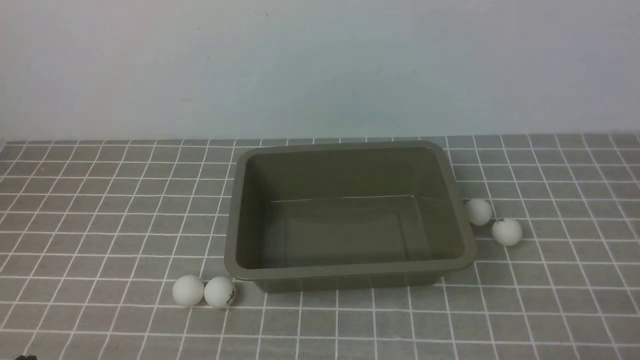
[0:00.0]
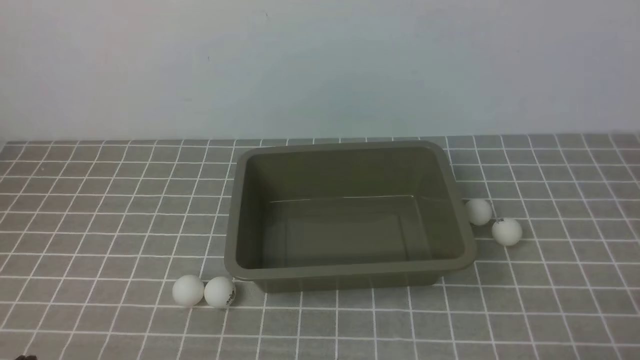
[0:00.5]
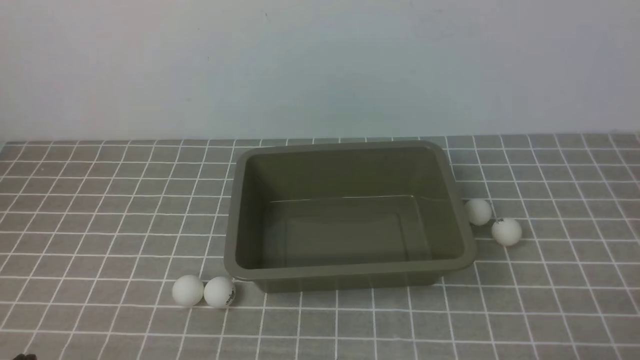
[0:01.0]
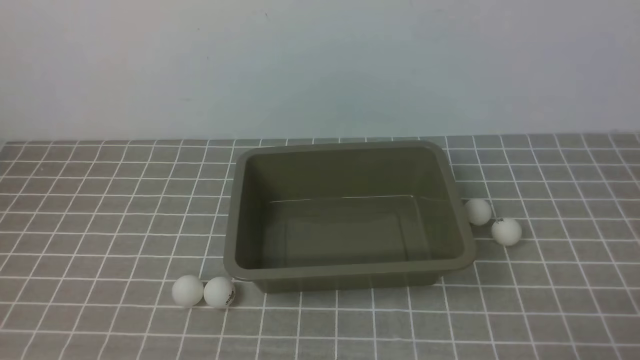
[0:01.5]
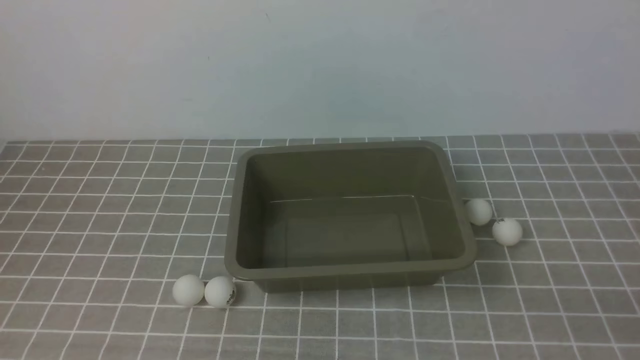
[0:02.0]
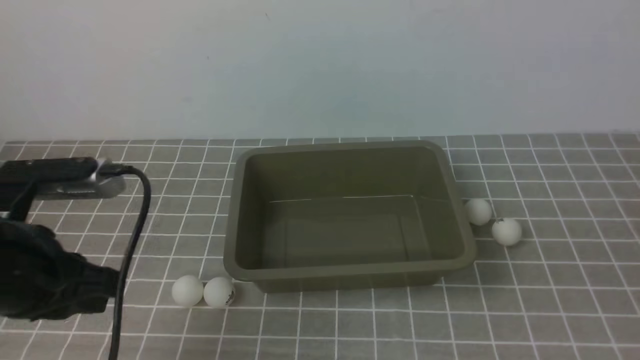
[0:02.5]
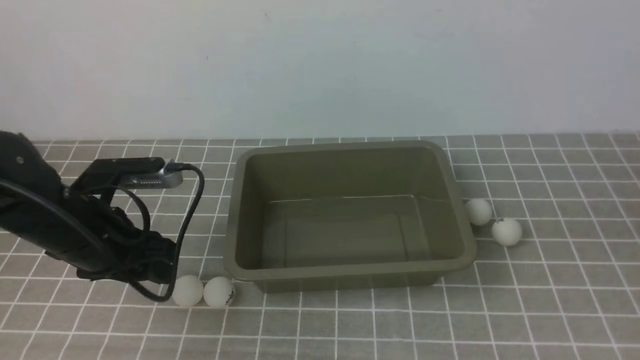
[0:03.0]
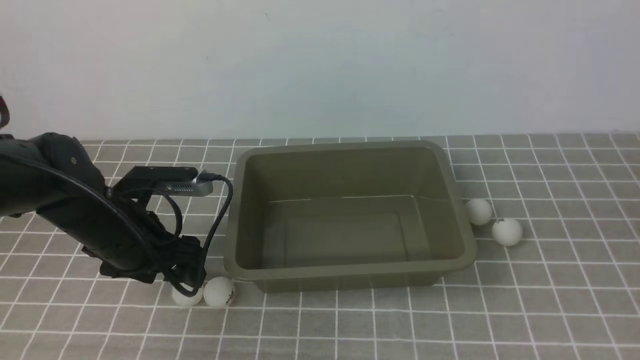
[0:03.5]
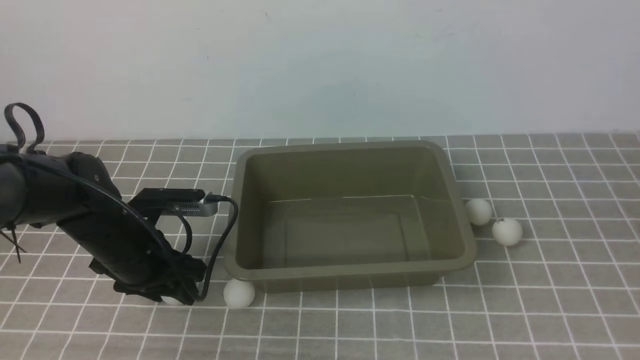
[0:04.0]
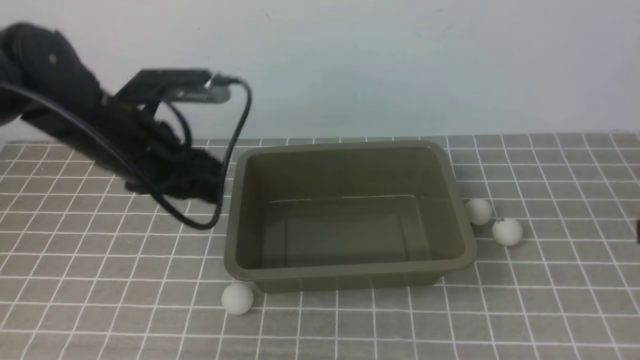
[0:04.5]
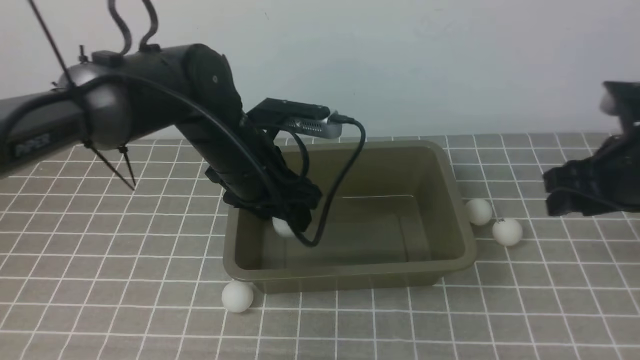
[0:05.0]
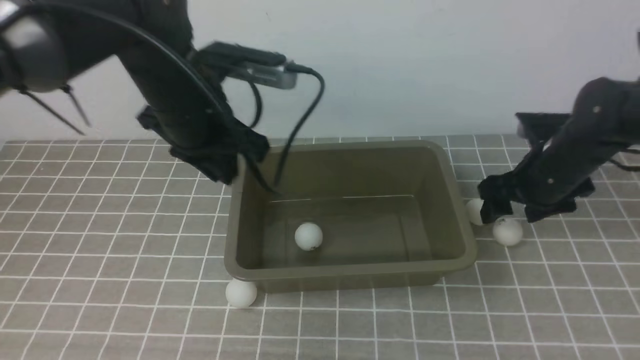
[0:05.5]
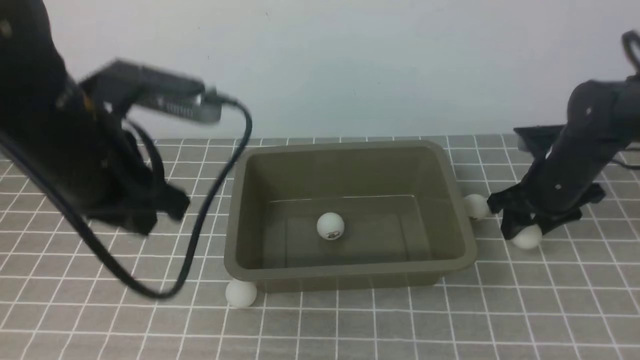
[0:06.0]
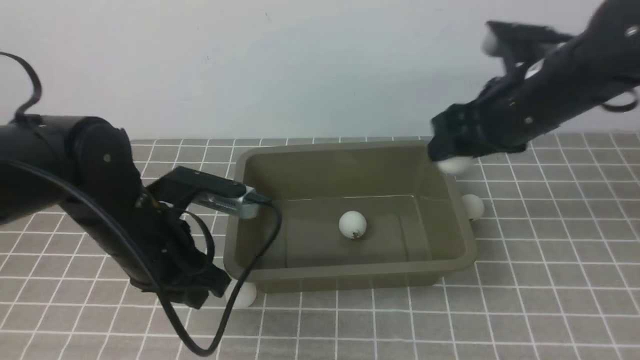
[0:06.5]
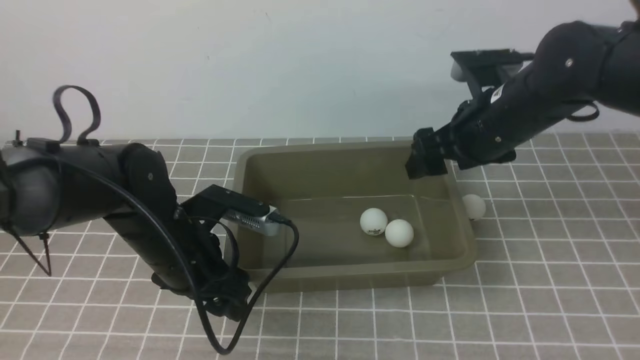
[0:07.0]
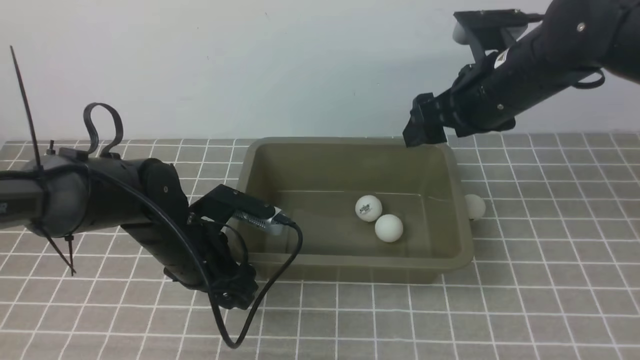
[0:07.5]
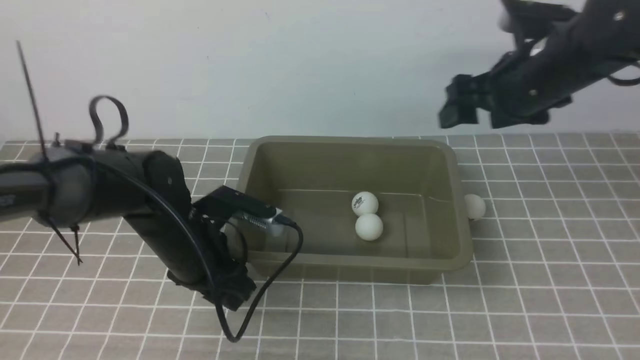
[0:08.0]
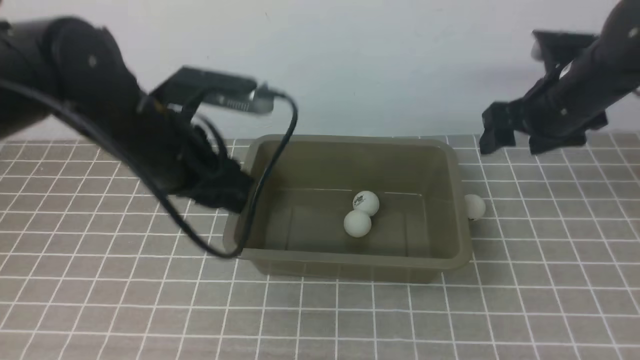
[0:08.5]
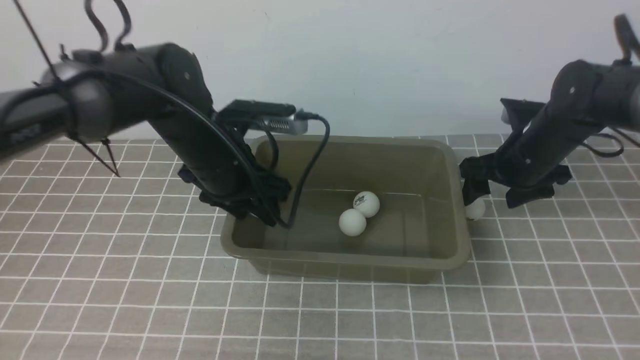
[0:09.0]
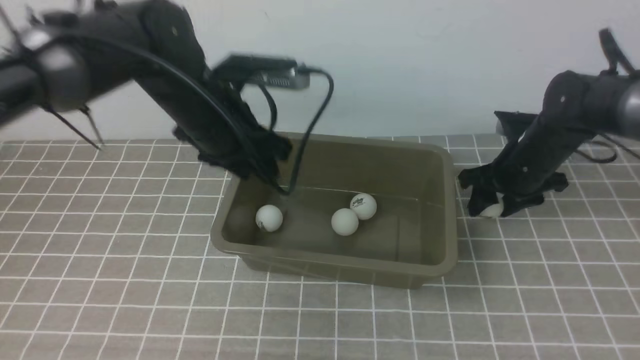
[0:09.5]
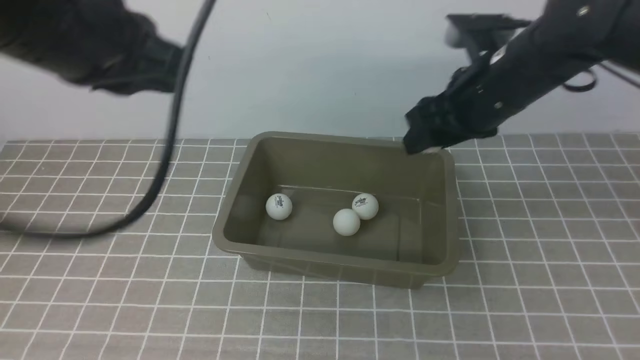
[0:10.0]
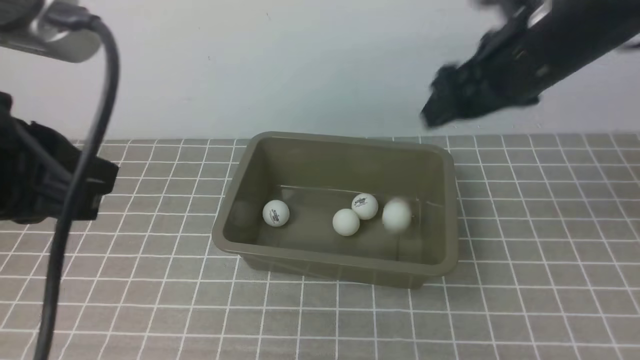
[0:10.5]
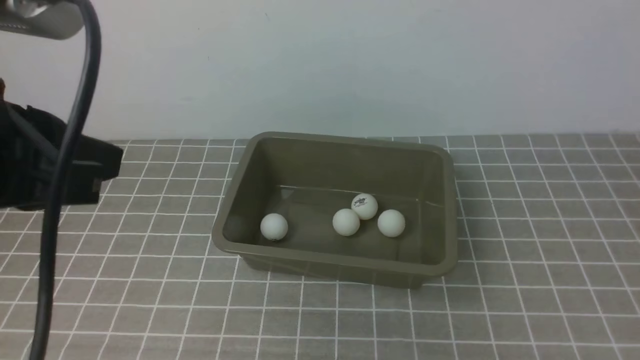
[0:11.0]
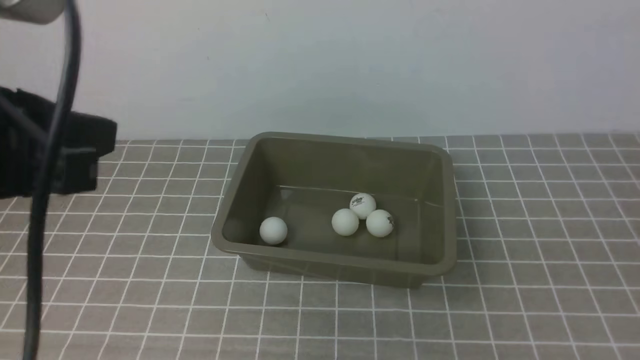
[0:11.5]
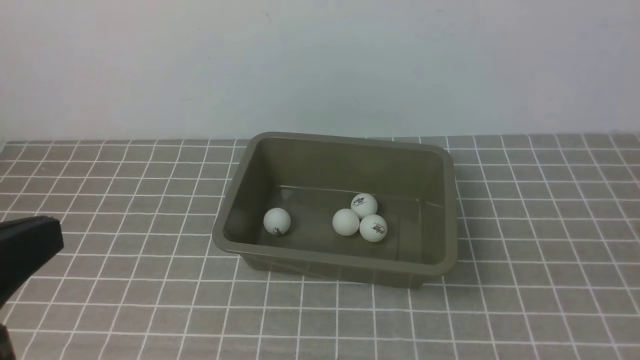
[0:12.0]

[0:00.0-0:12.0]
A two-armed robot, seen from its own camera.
Step, 0:00.0 to 0:04.0: use the left arm to clamp the table tennis ball closest to it.
Step, 0:04.5 to 0:05.0: use the left arm to put the table tennis ball into the box.
Step, 0:05.5 to 0:06.0: use the right arm to clamp the table tennis ball closest to it.
Step, 0:07.0 to 0:08.0: use the left arm to clamp the table tennis ball closest to it.
Step, 0:08.5 to 0:09.0: use the left arm to put the table tennis ball into the box.
Step, 0:10.0 to 0:10.5: use the right arm to put the table tennis ball into the box.
0:02.0 to 0:04.0: The left gripper heads forward and downward, covering some 30 cm, and opens up. The right gripper moves upward and forward, approximately 15 cm.
0:04.0 to 0:06.0: The left gripper shifts roughly 15 cm upward, and closes its fingers. The right gripper shifts roughly 30 cm forward and downward, and opens.
0:06.0 to 0:08.0: The right gripper is displaced upward by some 10 cm, and opens its fingers; the left gripper shifts about 15 cm downward, and opens up.
0:08.0 to 0:10.0: The right gripper goes downward and returns, approximately 10 cm each way. The left gripper goes up and down, roughly 25 cm each way, reversing 2 times, and closes.
0:10.0 to 0:12.0: The left gripper heads backward, covering about 15 cm; the right gripper travels backward by roughly 35 cm, and closes its fingers.

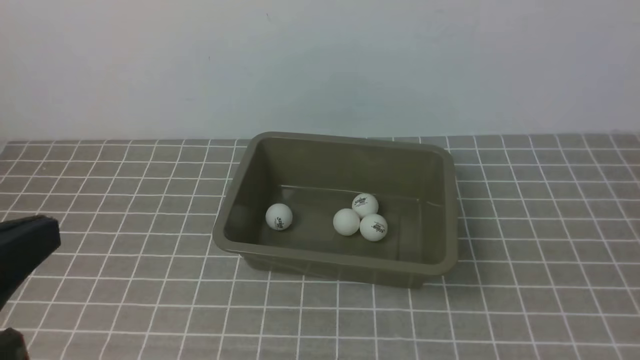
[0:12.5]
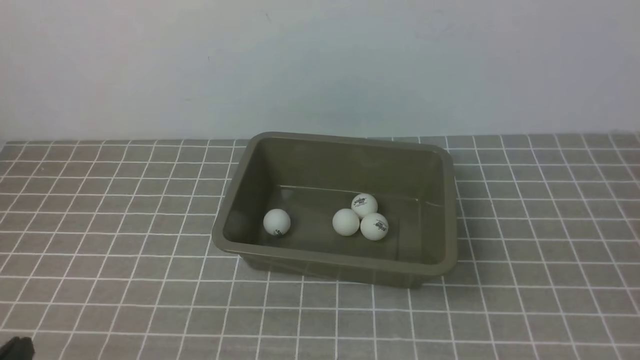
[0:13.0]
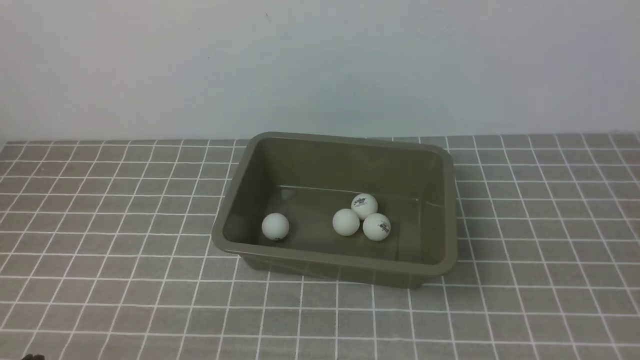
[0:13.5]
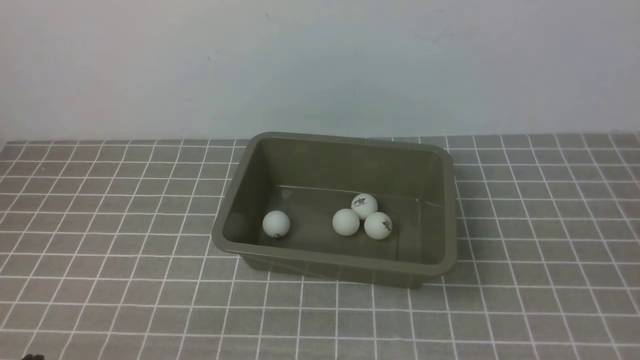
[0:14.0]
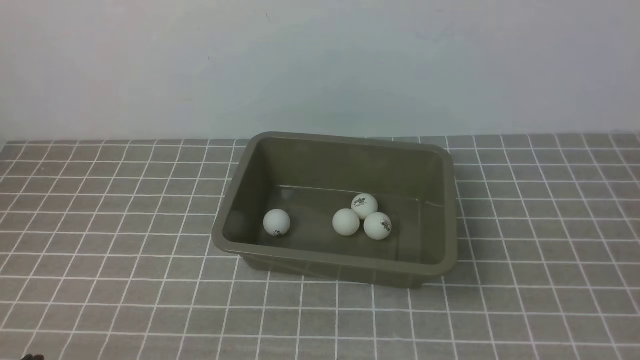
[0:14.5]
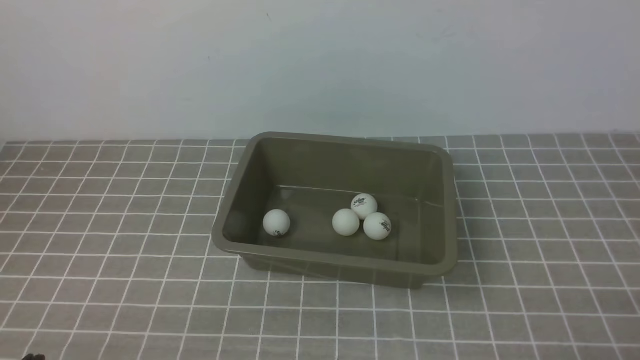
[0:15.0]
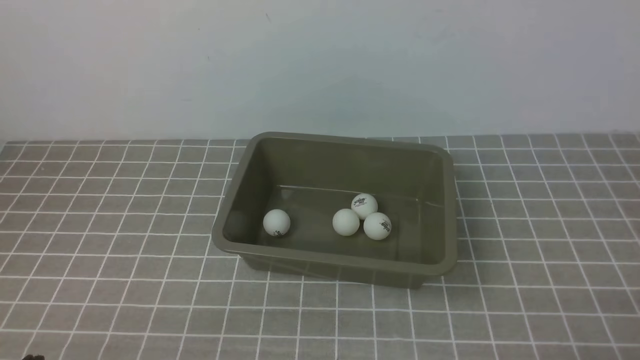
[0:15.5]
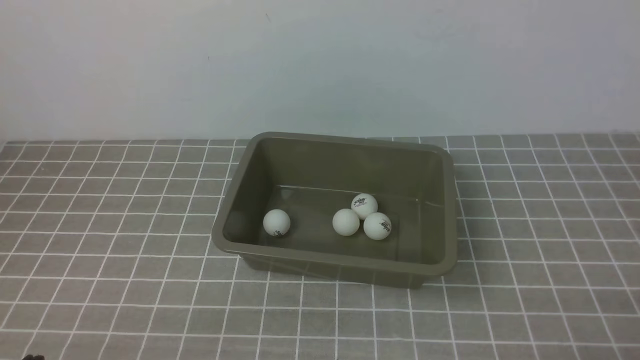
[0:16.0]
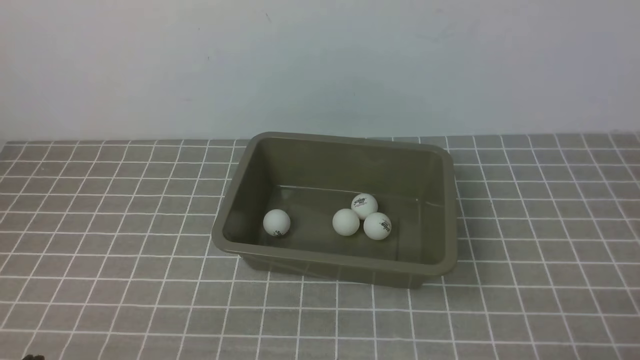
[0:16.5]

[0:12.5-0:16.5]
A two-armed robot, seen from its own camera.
0:12.5 to 0:14.5: The left gripper moves downward, approximately 15 cm.
